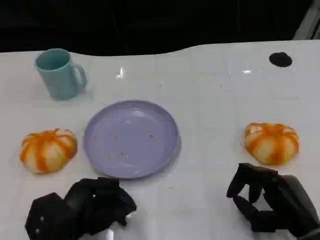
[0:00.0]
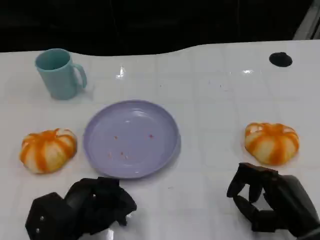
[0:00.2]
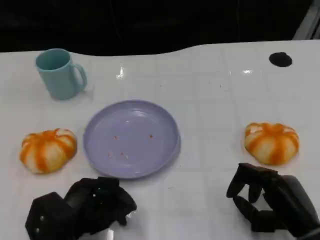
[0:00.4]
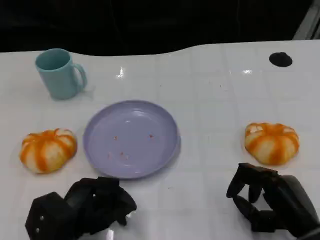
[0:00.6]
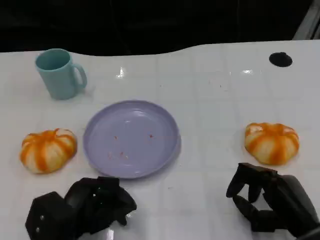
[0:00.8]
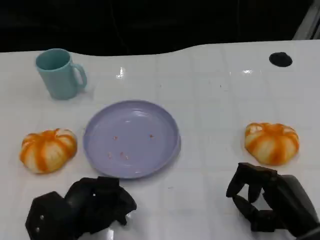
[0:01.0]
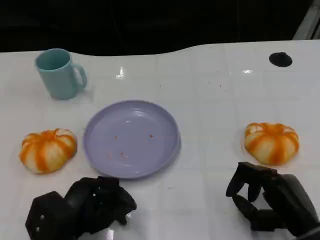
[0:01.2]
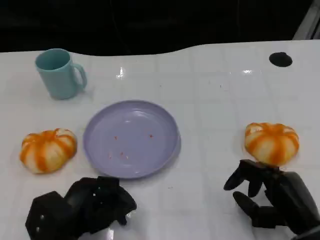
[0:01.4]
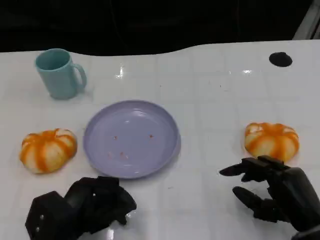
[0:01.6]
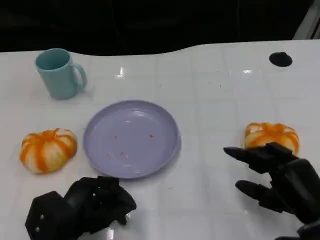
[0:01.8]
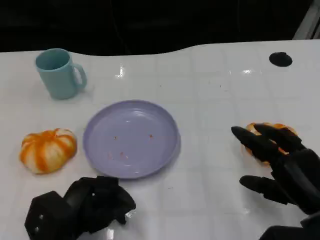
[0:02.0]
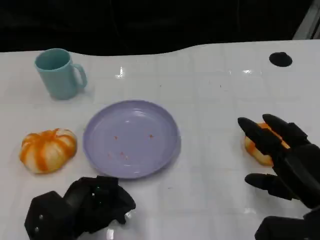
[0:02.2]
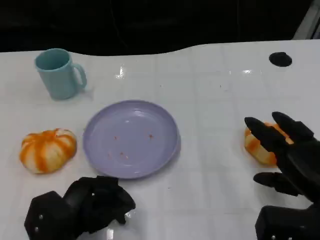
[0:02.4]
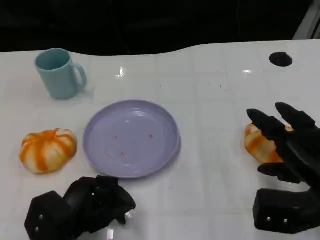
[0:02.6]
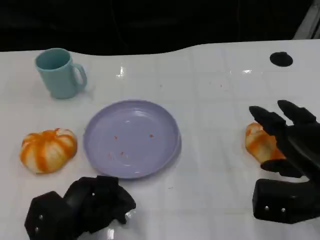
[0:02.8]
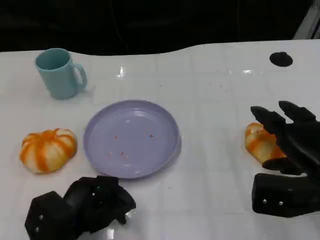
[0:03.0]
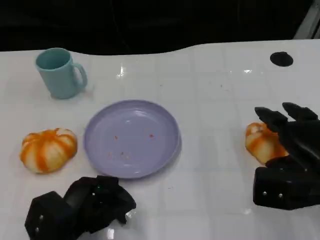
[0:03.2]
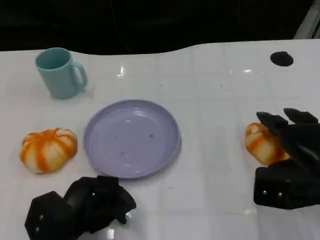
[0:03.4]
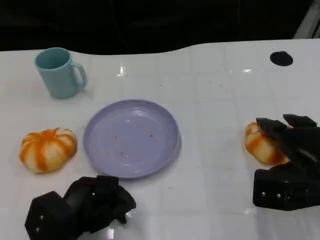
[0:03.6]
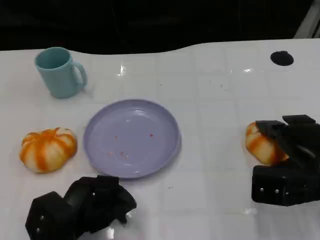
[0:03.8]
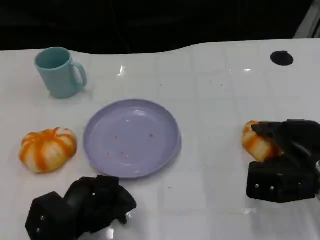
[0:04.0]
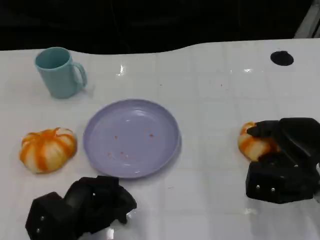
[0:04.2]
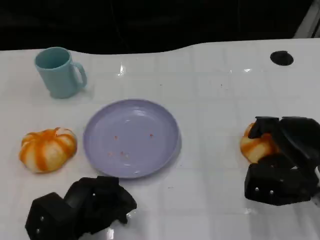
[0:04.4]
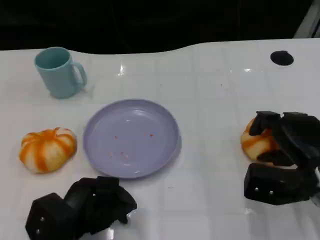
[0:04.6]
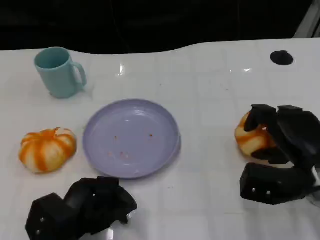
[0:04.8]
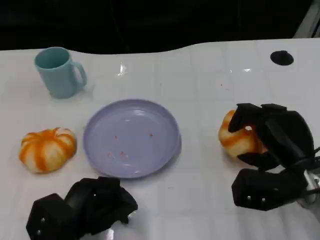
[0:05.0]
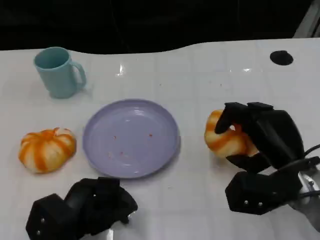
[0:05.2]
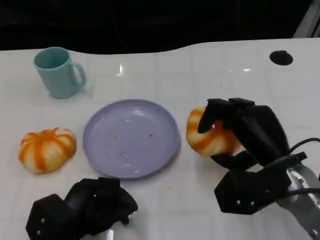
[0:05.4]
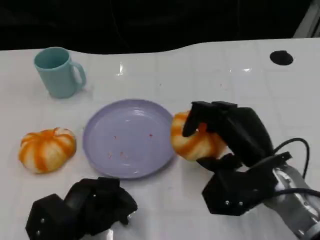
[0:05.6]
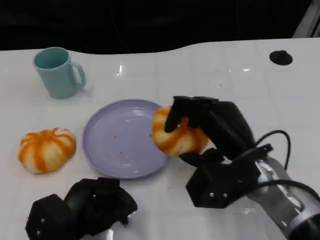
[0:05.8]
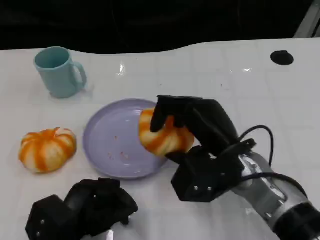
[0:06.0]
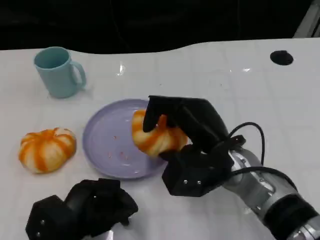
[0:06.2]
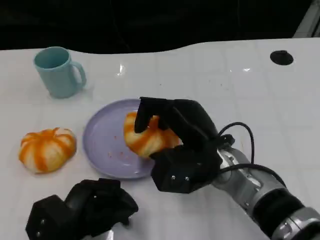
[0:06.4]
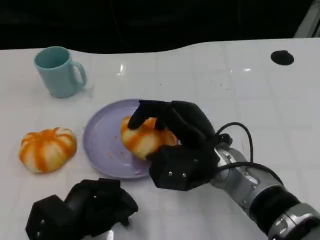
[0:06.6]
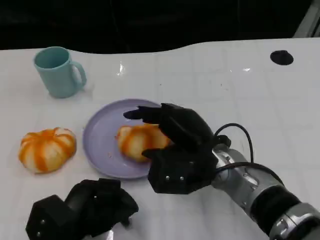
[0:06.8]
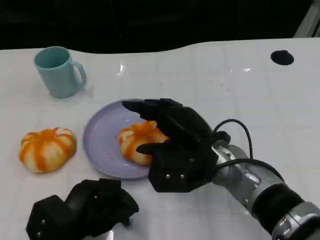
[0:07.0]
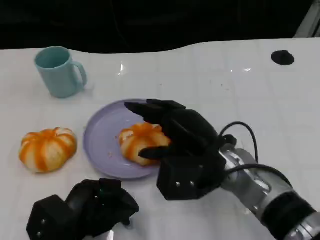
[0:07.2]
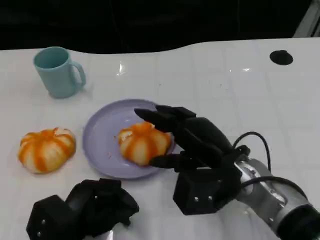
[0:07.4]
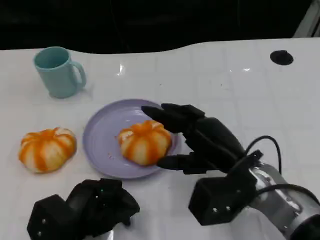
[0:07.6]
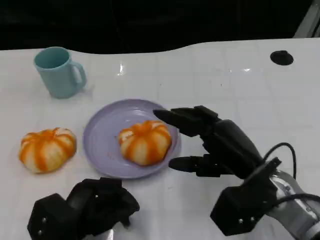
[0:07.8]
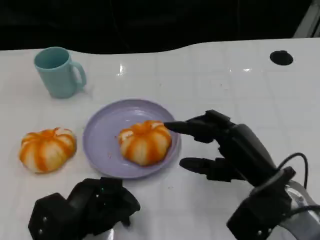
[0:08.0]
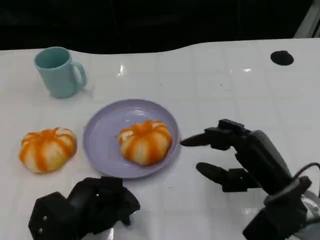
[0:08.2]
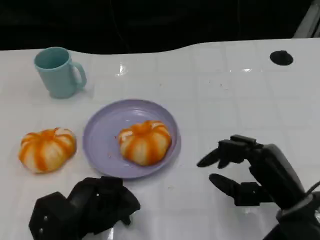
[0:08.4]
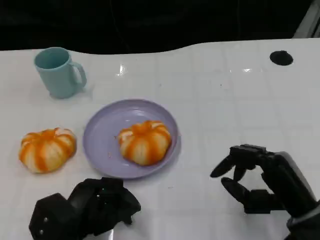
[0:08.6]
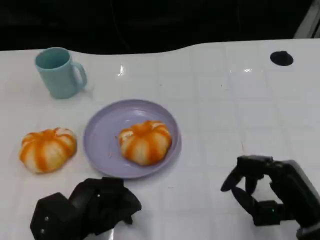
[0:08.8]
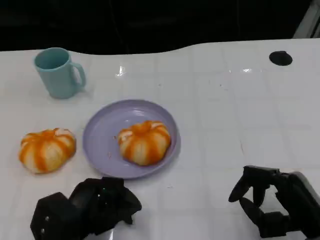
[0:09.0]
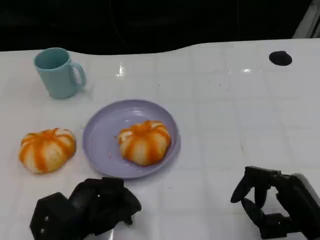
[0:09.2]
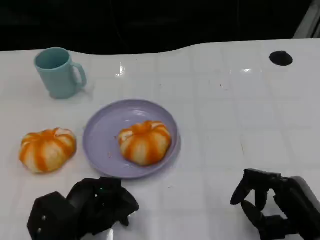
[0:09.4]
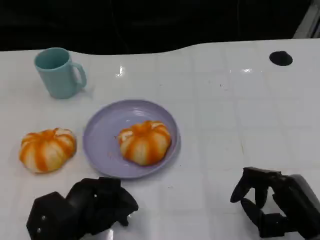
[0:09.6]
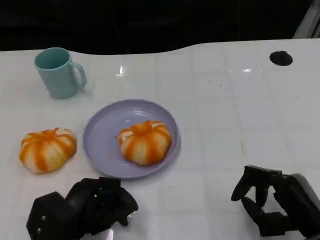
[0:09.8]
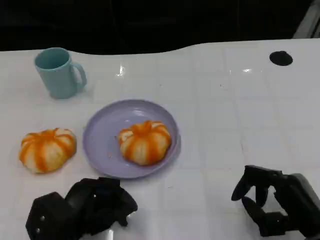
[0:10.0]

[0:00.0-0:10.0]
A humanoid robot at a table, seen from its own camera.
Task of the whole recording: Grasp the bread from the table and place it into the plate.
0:00.0 to 0:01.4: Neither hand changes place.
0:01.4 to 0:02.8: The right hand goes roughly 10 cm upward and forward.
0:02.8 to 0:04.2: The hands move only a little.
0:04.2 to 0:05.8: The right hand goes approximately 10 cm to the left.
0:05.8 to 0:07.2: The hands move only a little.
0:07.2 to 0:08.6: The right hand heads to the right and backward, covering roughly 15 cm.
0:08.6 to 0:10.0: There are only small adjustments of the hands.

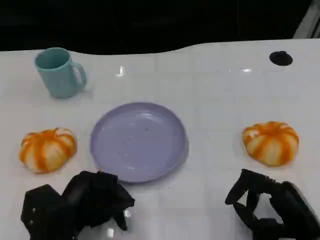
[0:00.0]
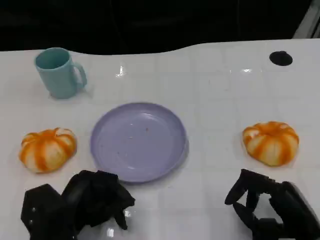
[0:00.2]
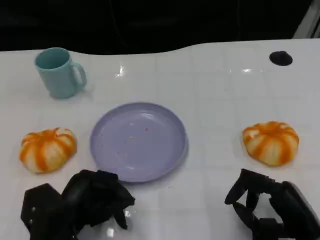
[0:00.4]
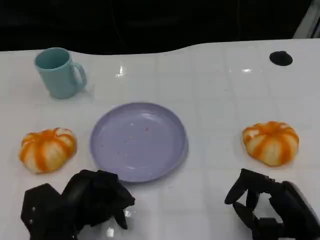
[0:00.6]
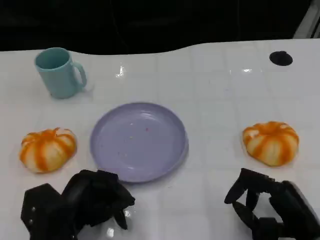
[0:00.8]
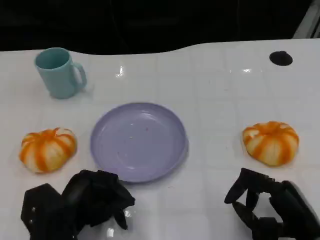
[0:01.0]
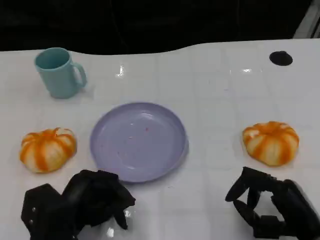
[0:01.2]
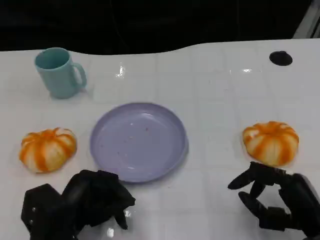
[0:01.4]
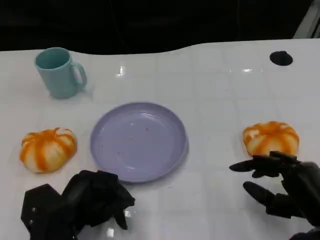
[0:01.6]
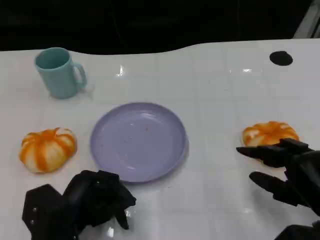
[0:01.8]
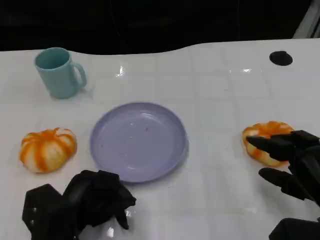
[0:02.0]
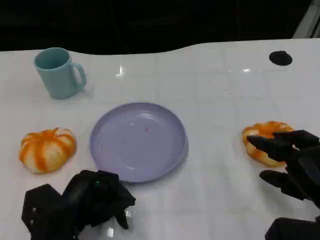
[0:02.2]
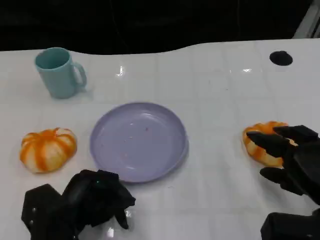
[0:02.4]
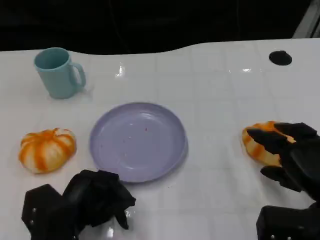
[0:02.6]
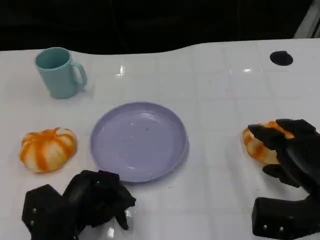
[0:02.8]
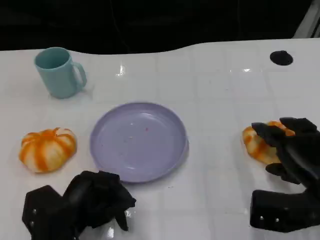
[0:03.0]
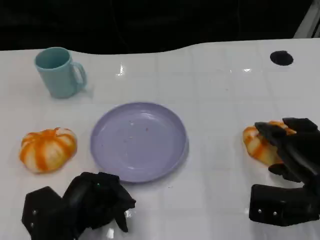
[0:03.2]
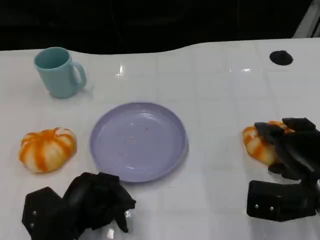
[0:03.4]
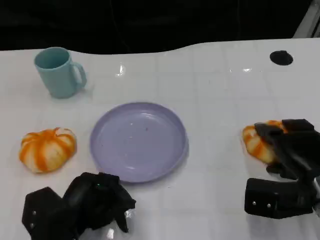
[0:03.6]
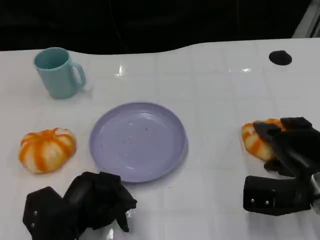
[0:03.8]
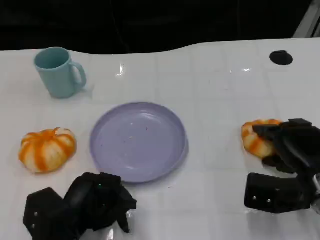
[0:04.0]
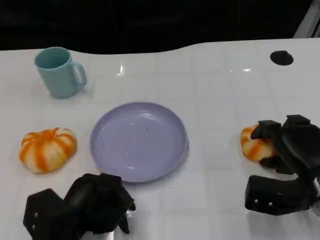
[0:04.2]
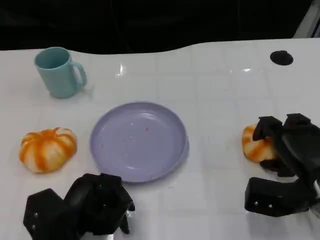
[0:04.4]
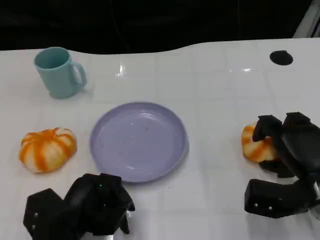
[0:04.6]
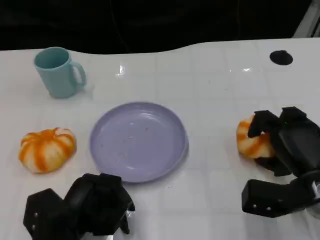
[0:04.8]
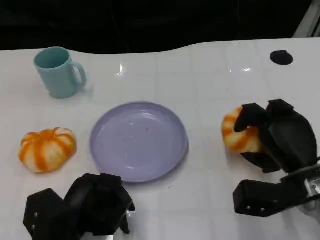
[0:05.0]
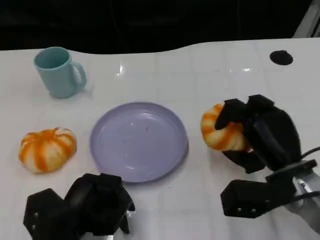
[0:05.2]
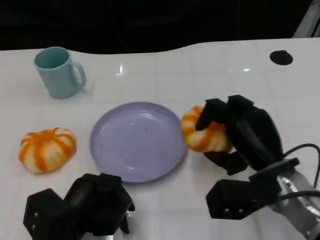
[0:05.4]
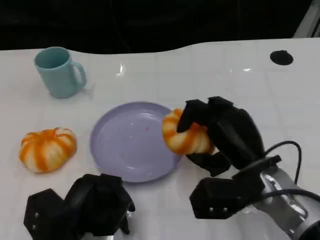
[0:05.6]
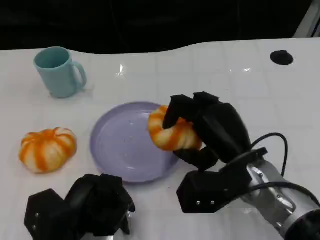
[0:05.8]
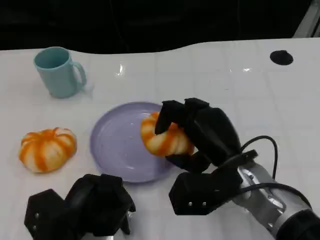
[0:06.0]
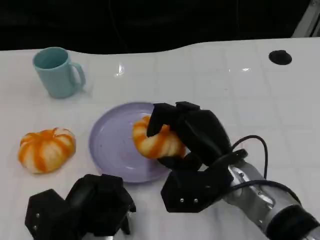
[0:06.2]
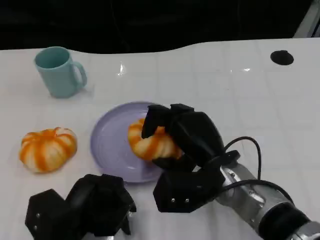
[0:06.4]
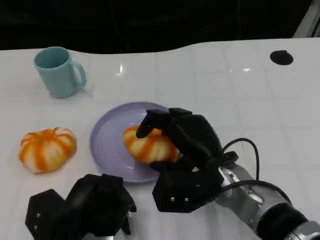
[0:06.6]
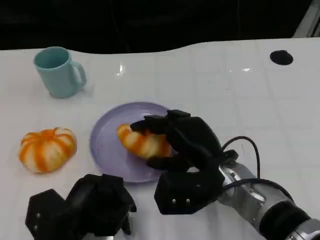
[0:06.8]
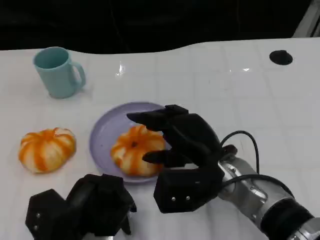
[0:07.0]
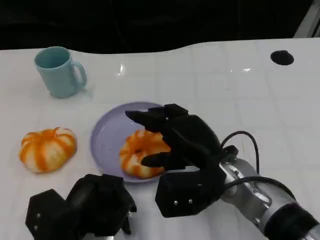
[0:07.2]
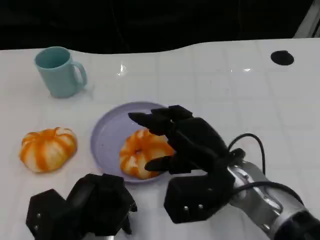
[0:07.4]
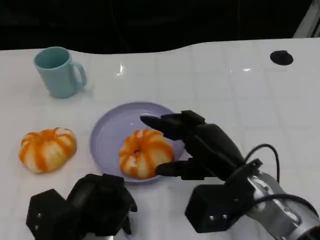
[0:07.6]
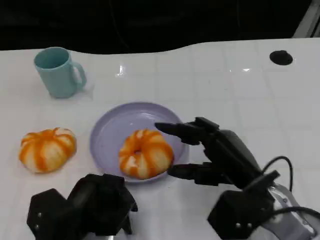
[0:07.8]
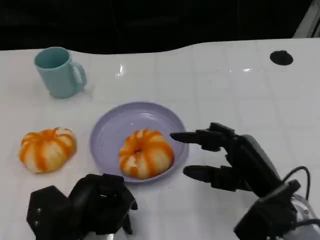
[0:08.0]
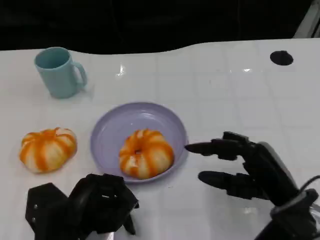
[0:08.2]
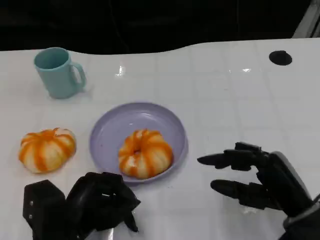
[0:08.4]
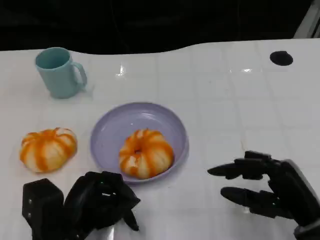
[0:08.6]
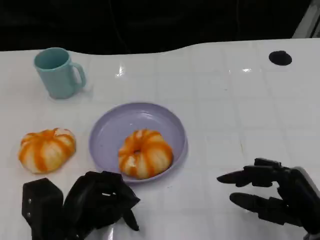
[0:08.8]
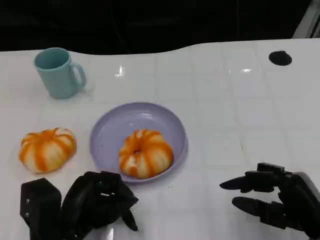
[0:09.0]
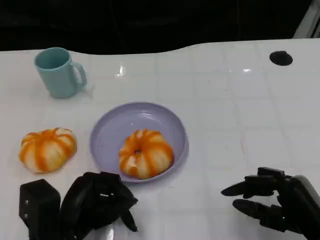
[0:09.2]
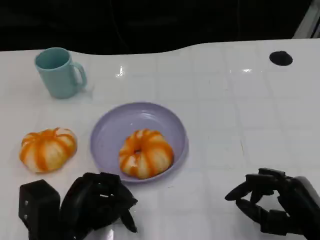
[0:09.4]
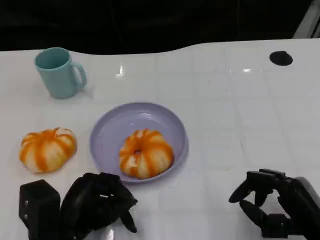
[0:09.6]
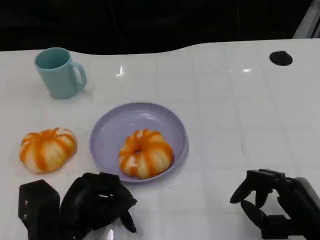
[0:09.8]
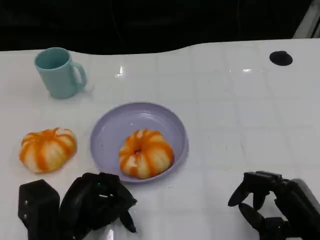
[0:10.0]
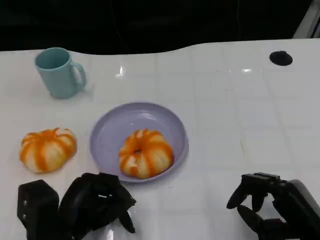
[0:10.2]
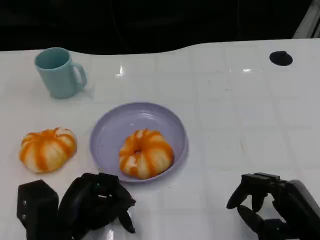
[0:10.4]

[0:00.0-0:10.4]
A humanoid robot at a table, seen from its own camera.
Task of the whole recording: Grasp the bread from the table and place it into the plate.
0:00.0 to 0:01.4: There are only small adjustments of the hands.
0:01.4 to 0:03.0: The right hand goes about 5 cm forward.
0:03.0 to 0:04.4: There are only small adjustments of the hands.
0:04.4 to 0:06.0: The right hand heads to the left and upward, covering some 15 cm.
0:06.0 to 0:07.4: There are only small adjustments of the hands.
0:07.4 to 0:09.0: The right hand goes some 15 cm to the right and backward.
0:09.0 to 0:10.4: The two hands keep their place.

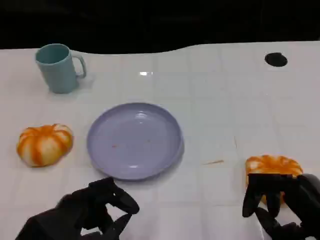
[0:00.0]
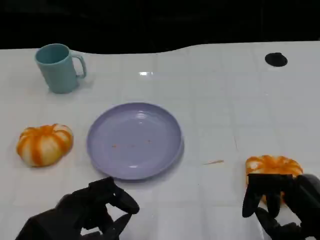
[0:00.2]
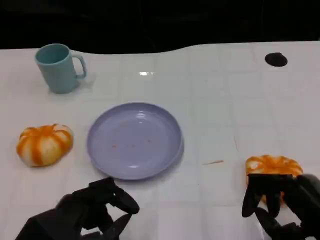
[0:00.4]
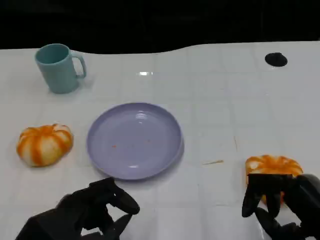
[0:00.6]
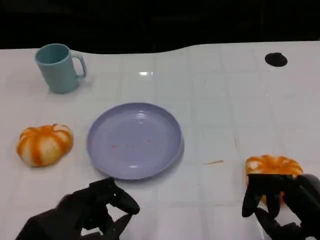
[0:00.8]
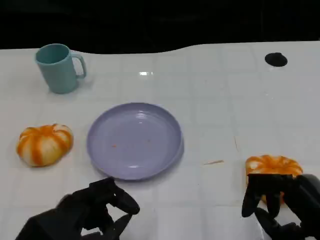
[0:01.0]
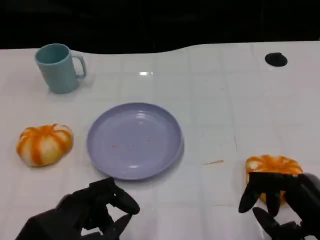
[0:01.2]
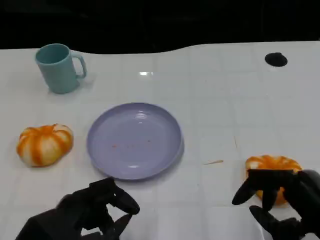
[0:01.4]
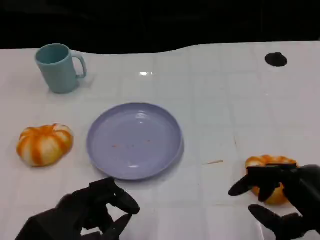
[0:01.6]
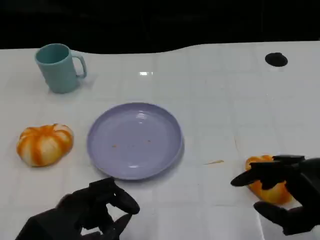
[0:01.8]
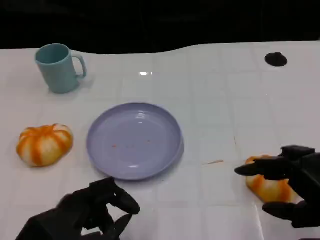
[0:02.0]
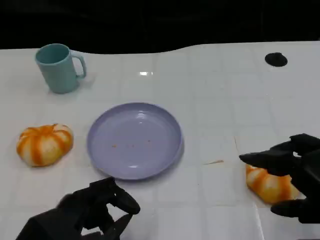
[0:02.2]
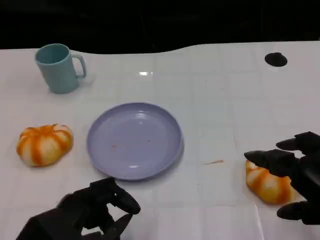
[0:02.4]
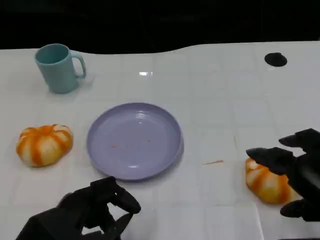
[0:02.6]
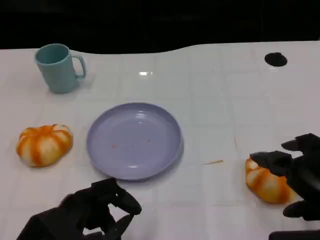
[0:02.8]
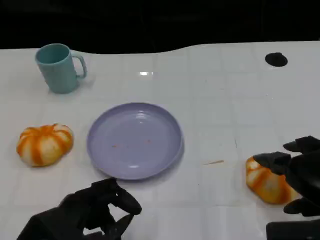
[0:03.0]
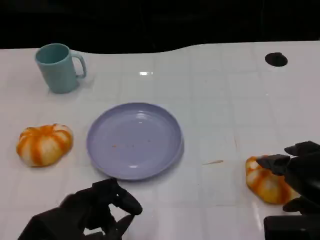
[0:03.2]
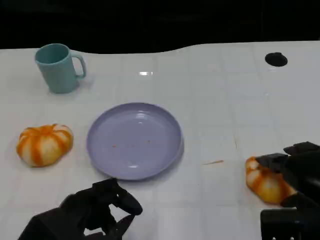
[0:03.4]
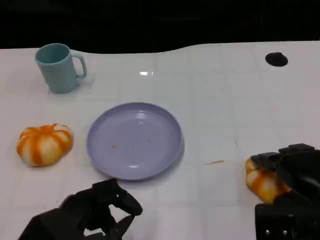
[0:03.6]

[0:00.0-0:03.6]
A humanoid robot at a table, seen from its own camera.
Task of the whole recording: Grasp the bread from the table and place it into the plate.
0:00.0 to 0:01.8: The hands stay close to where they were, moving slightly.
0:01.8 to 0:03.6: The right hand travels forward by approximately 5 cm.
